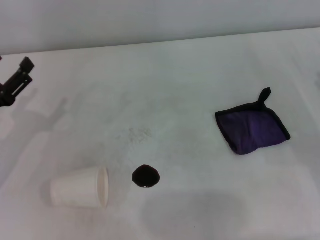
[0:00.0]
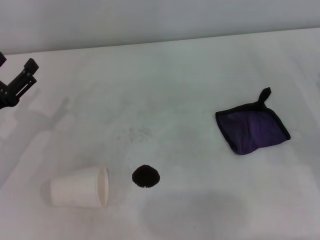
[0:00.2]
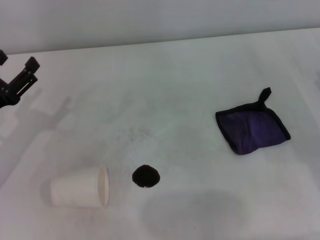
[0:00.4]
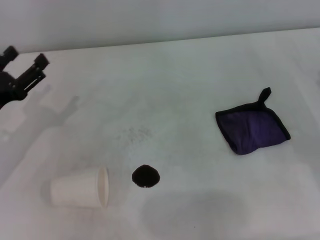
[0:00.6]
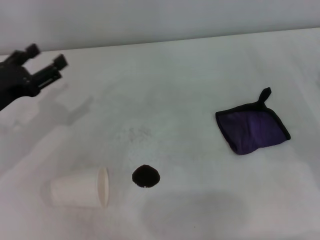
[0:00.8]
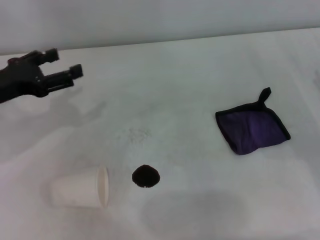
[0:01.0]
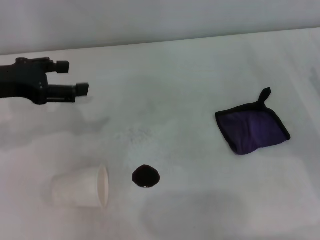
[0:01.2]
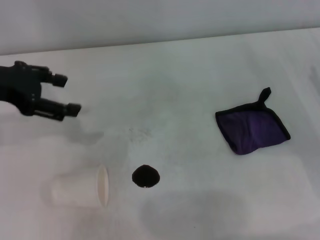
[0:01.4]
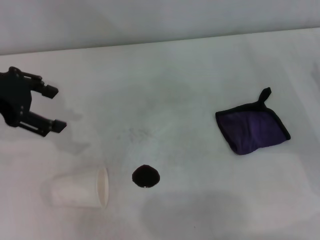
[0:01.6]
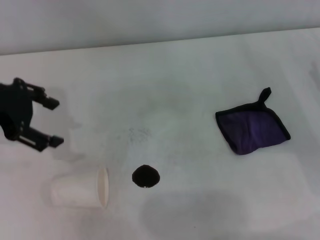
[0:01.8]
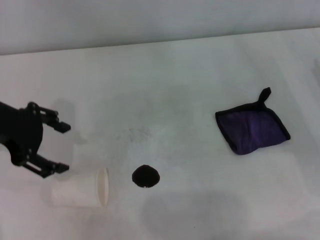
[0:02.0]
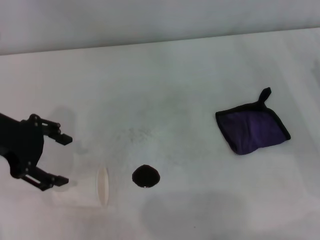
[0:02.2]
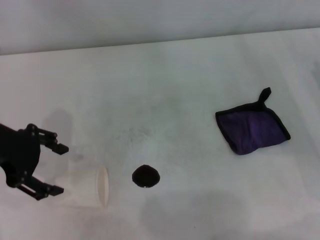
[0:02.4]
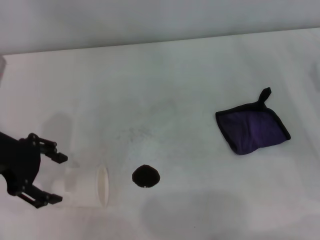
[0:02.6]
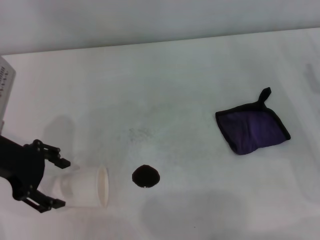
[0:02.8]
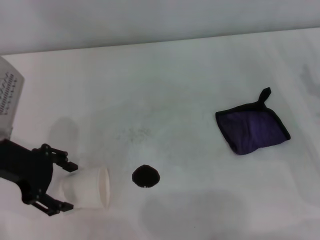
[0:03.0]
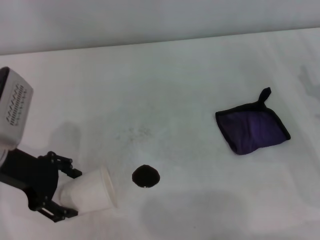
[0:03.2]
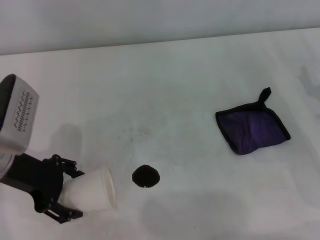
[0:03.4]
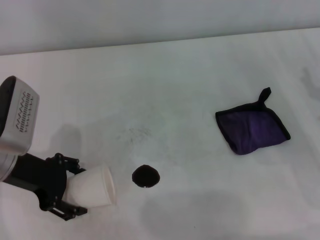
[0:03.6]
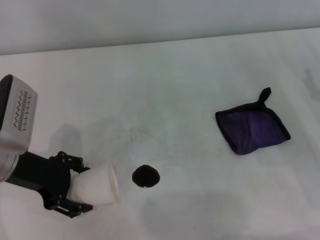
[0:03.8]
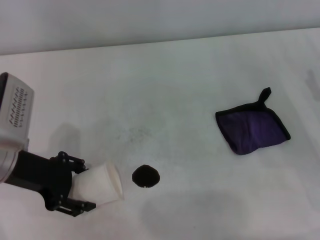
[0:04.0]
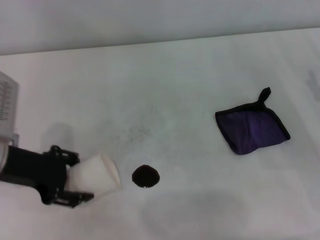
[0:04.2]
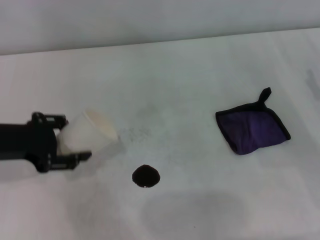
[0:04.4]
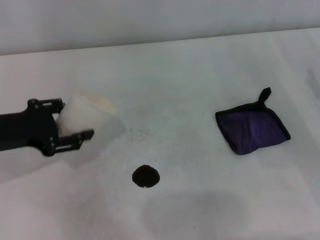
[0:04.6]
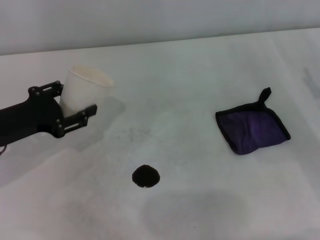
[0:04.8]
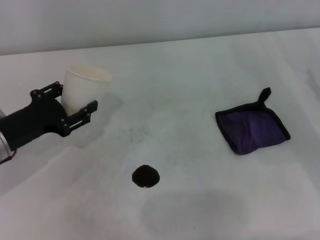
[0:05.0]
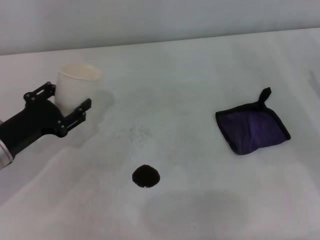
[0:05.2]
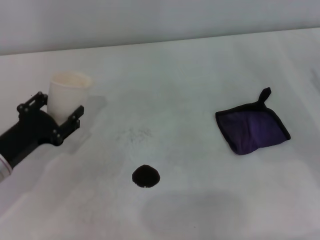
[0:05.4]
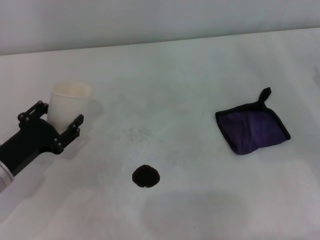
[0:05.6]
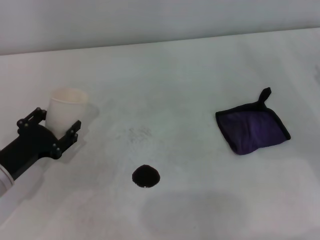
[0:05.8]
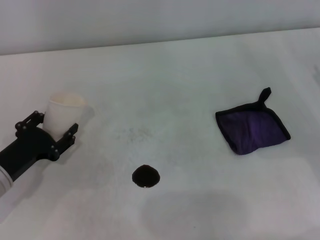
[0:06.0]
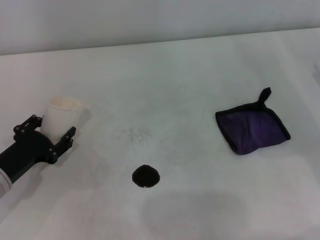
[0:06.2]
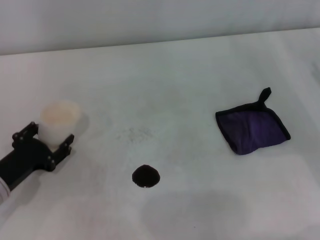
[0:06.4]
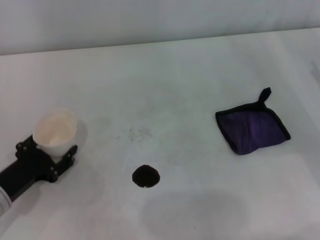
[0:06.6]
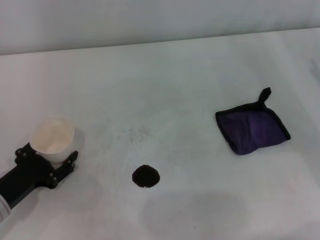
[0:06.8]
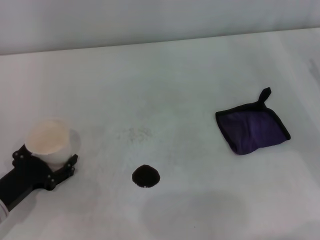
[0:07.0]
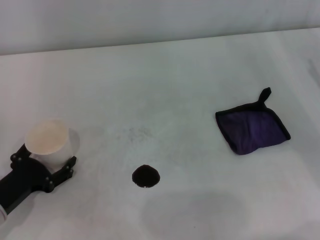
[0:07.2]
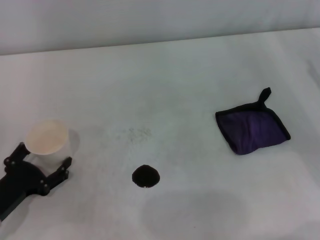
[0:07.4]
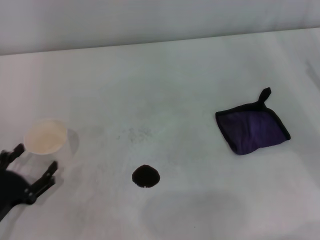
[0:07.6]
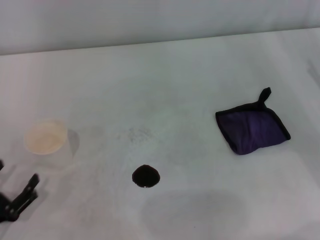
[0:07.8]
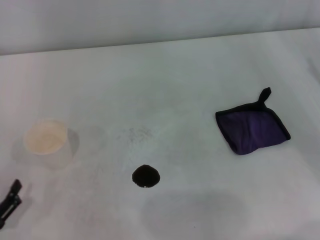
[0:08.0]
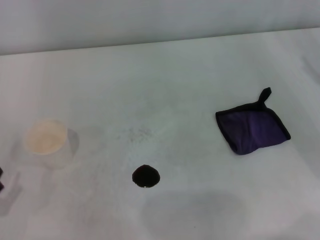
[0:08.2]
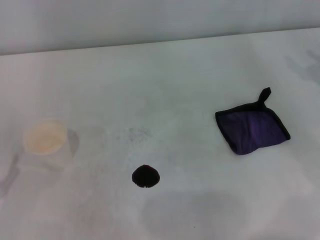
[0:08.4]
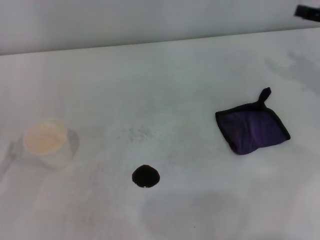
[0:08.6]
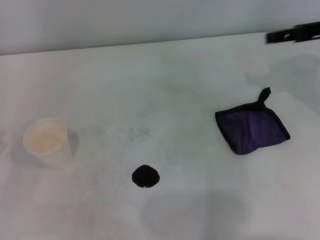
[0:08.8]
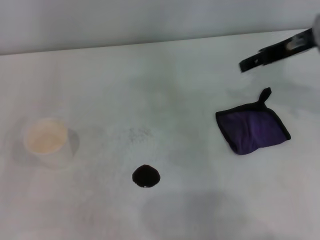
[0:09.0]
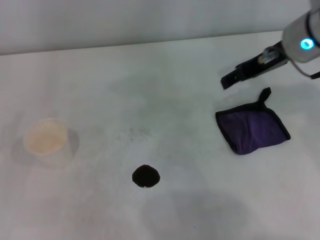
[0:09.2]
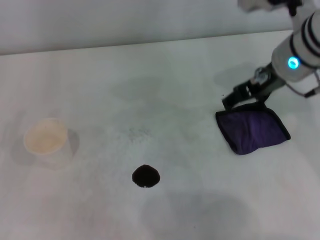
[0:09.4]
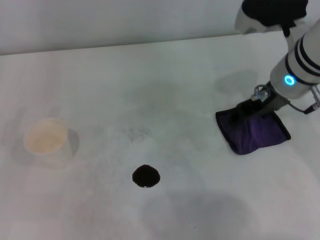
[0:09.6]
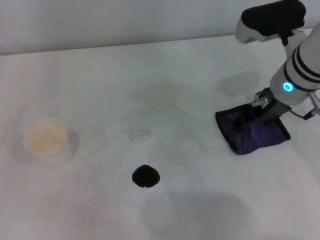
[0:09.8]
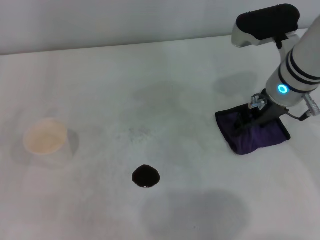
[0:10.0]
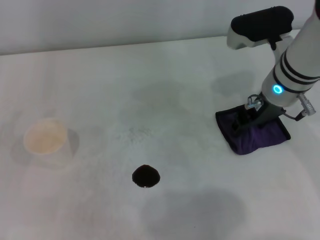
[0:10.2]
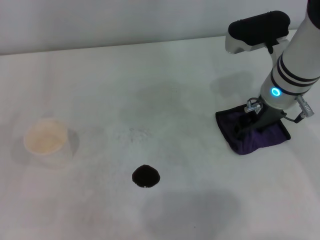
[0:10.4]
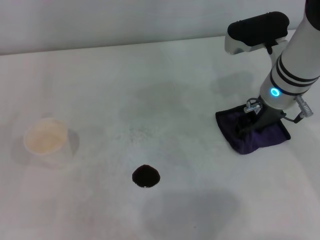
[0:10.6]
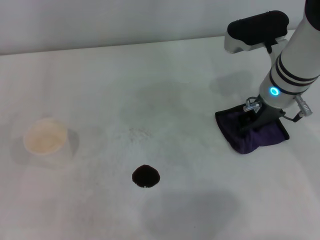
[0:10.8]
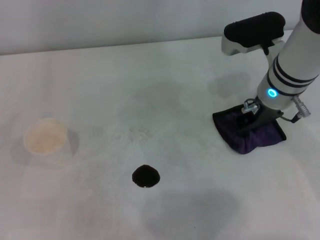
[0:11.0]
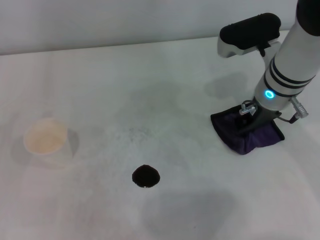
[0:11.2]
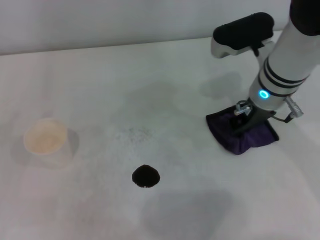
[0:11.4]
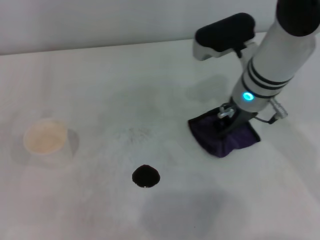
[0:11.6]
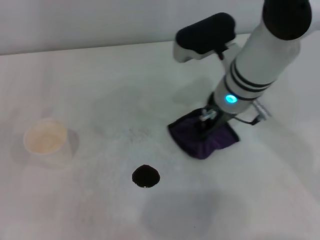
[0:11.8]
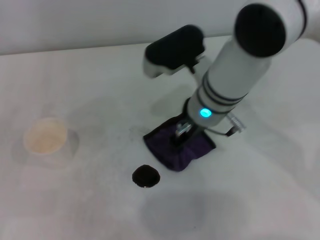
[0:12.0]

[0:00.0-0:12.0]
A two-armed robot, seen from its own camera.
Step, 0:00.0 to 0:03.8: Grasp the paper cup with the left gripper.
Step, 0:04.0 to 0:07.0: Stand the paper cup upright with the left gripper.
Step, 0:07.2 to 0:11.2: Grasp the rag with the right gripper.
0:00.0 to 0:01.6: The left gripper shifts some 20 cm upward and forward.
0:01.6 to 0:03.0: The left gripper is displaced downward by about 10 cm.
0:03.0 to 0:04.4: The left gripper closes its fingers.
0:04.4 to 0:06.0: The left gripper travels downward by roughly 15 cm.
0:06.0 to 0:07.6: The left gripper is displaced backward by about 10 cm, and opens up.
0:07.6 to 0:09.0: The right gripper heads to the left, upward and forward, covering some 20 cm. The left gripper heads to the left and upward, covering about 10 cm.
0:09.0 to 0:10.4: The right gripper shifts about 10 cm downward and to the left.
0:10.4 to 0:12.0: The right gripper is displaced to the left by some 10 cm, and closes up.

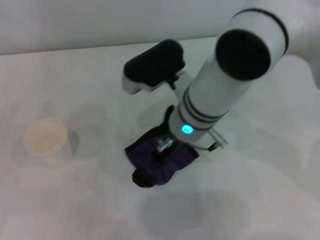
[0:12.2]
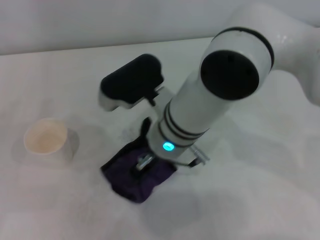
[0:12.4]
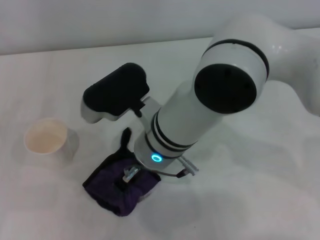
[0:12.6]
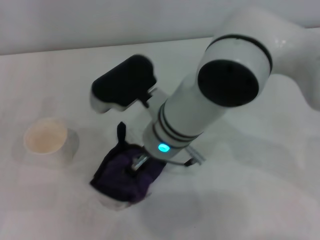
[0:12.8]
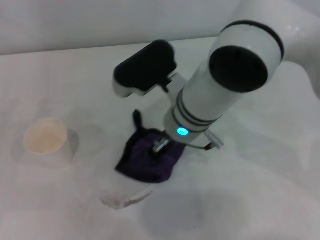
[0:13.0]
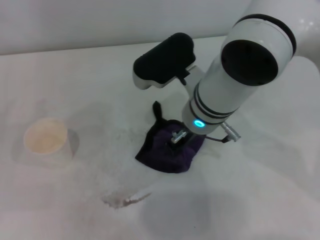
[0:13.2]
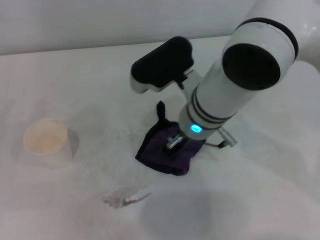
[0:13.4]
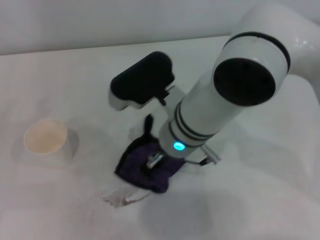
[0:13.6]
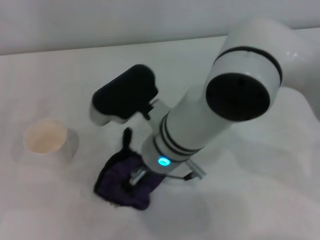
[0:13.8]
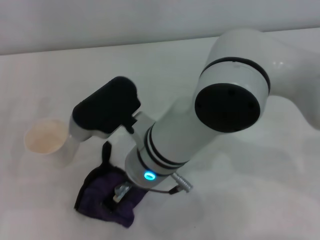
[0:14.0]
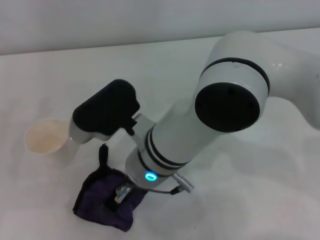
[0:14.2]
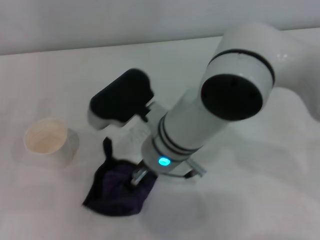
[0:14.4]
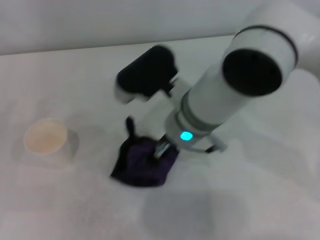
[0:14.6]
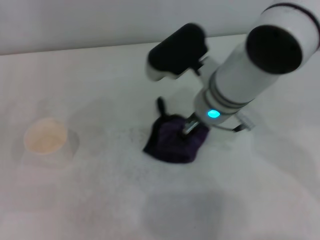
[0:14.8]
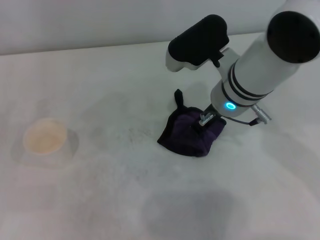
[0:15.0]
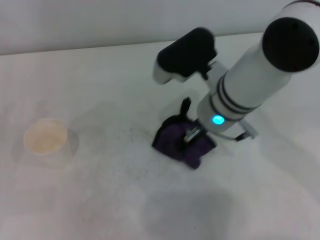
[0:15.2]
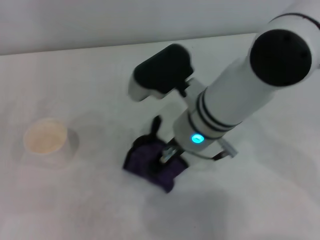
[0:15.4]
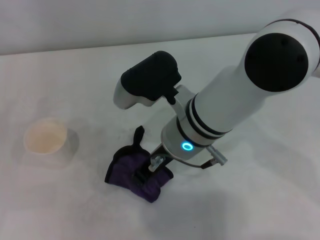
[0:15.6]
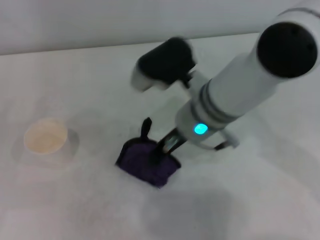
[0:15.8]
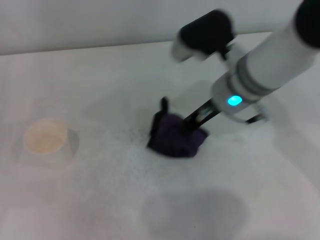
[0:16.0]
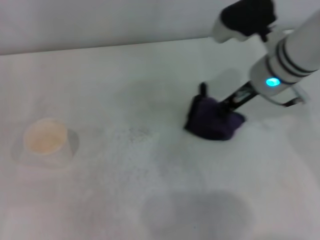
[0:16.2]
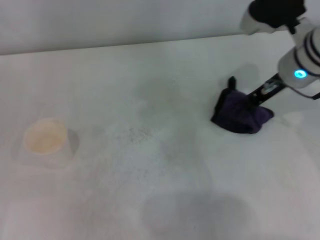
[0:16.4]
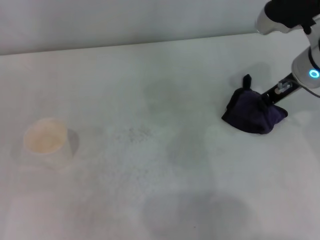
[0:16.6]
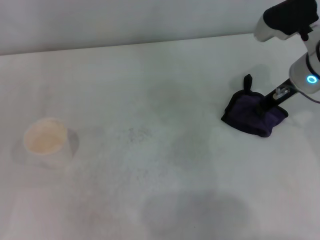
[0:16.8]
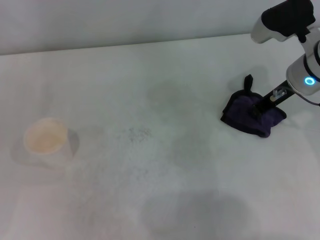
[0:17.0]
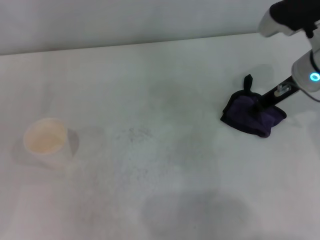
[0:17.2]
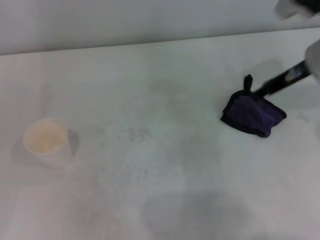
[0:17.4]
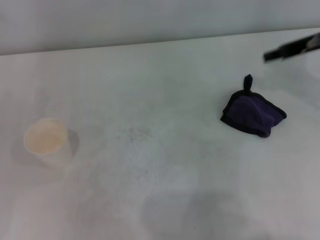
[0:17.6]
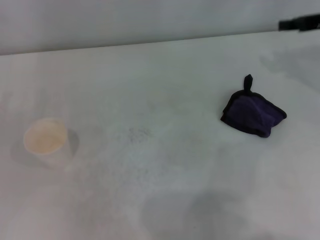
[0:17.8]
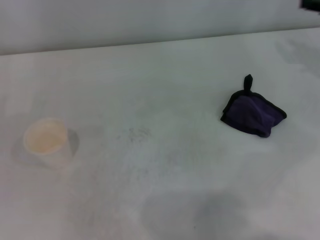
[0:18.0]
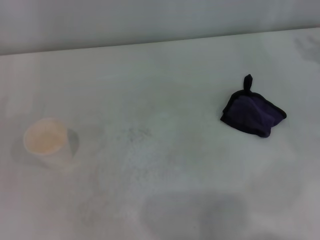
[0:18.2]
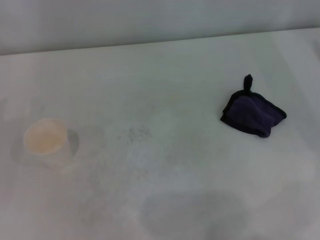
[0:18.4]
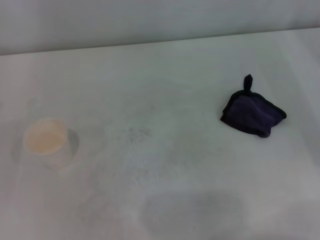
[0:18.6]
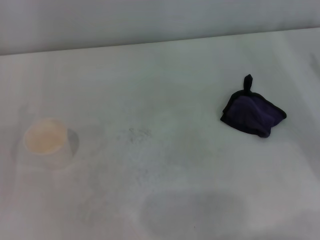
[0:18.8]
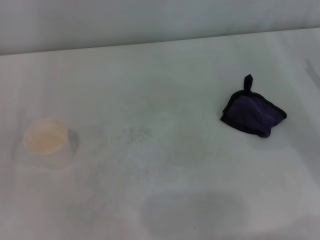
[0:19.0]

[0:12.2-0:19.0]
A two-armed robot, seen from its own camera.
Step, 0:12.2 to 0:16.2: Wipe the stains off the table with the right gripper.
Step, 0:16.4 to 0:16.8: Place the rag on the table with the right gripper.
0:12.2 to 0:13.6: The grippers stay close to where they were, moving slightly.
0:13.6 to 0:15.0: The right gripper is displaced to the right by roughly 10 cm.
0:15.0 to 0:16.2: The right gripper is displaced to the right by some 5 cm.
0:16.2 to 0:17.6: The right gripper travels to the right by about 15 cm, and opens its fingers.
0:17.6 to 0:19.0: The right gripper heads downward, backward and to the right, covering about 15 cm, and opens.

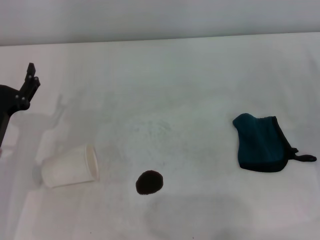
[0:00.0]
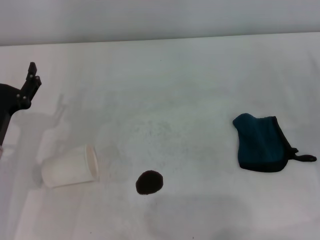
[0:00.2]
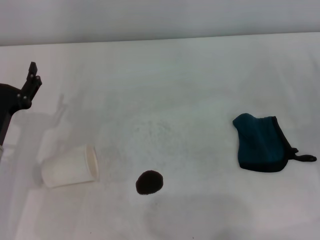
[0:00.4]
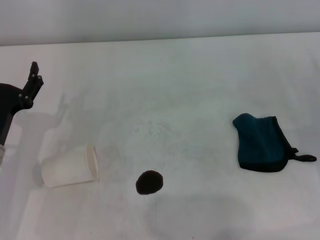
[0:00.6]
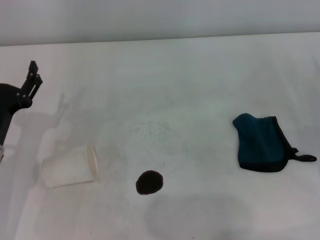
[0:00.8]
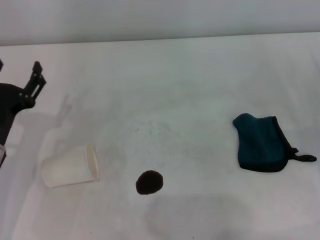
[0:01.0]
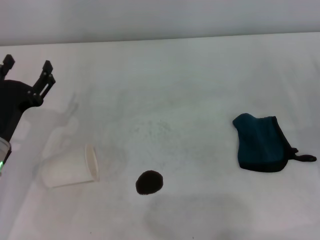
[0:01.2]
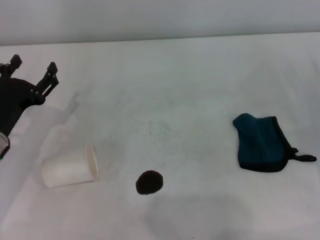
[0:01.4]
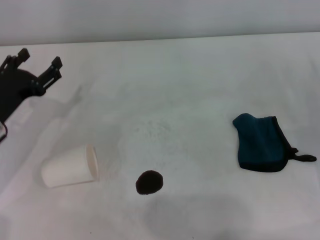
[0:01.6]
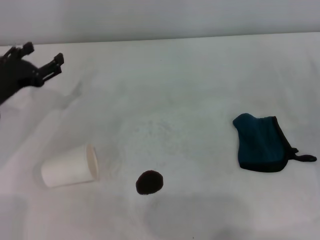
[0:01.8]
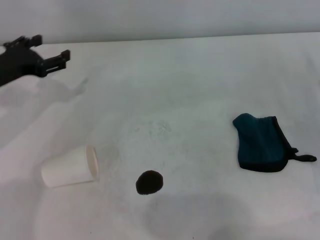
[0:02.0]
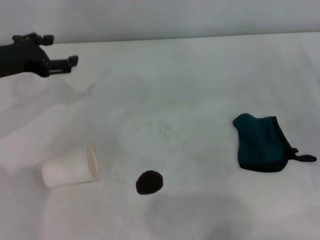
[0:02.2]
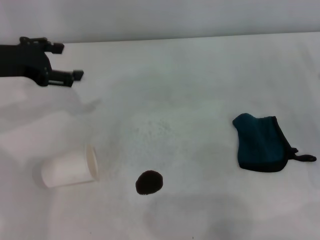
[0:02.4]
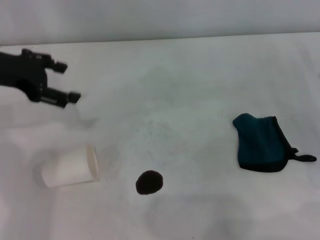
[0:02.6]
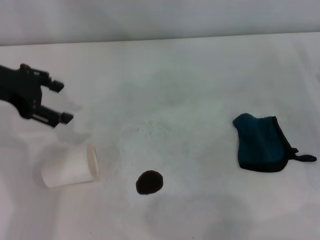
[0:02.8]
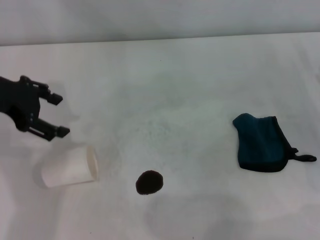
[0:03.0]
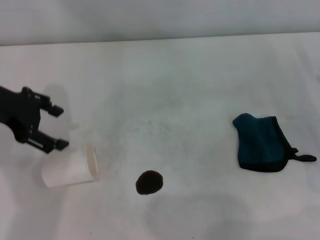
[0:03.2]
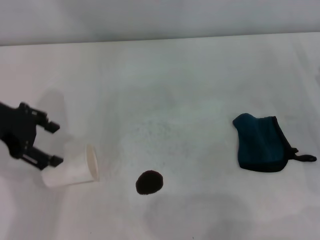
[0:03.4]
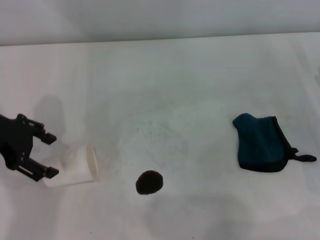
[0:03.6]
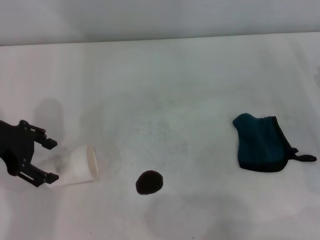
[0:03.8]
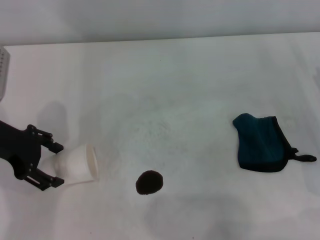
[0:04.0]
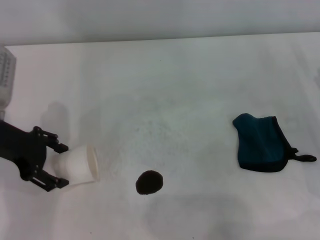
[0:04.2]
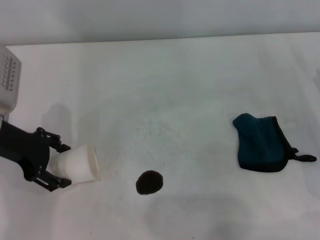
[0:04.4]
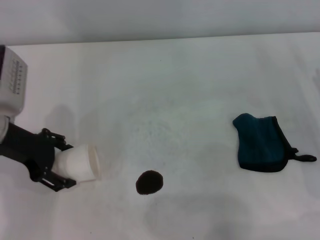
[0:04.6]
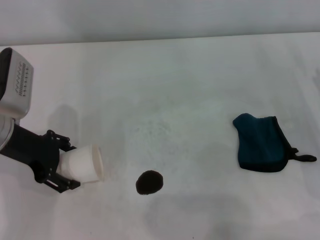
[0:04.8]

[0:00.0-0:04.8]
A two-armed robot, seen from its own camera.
0:00.0 to 0:01.6: The left gripper goes approximately 5 cm forward.
0:01.6 to 0:03.2: The left gripper is displaced upward by some 15 cm.
0:03.2 to 0:04.8: The left gripper moves downward, approximately 10 cm.
